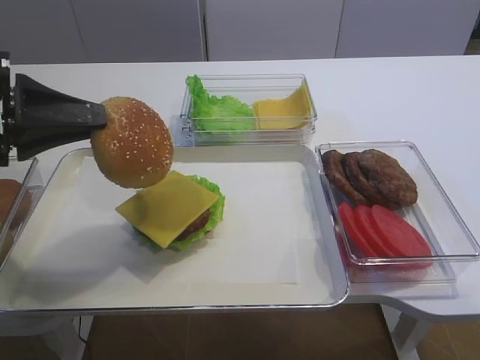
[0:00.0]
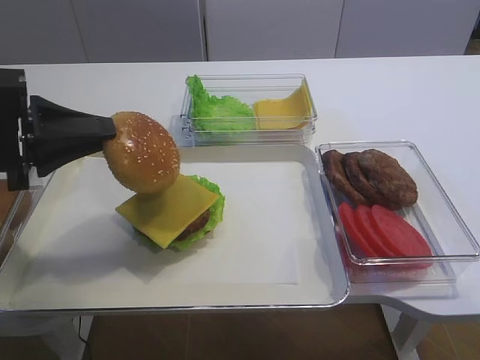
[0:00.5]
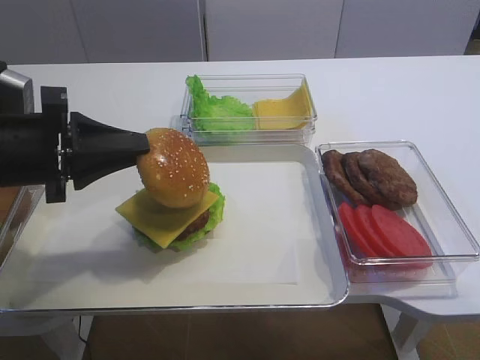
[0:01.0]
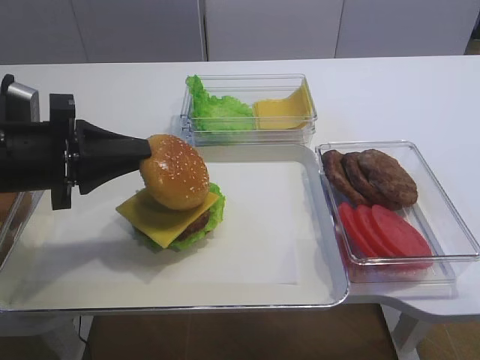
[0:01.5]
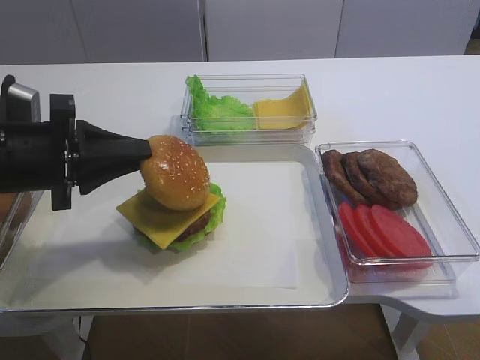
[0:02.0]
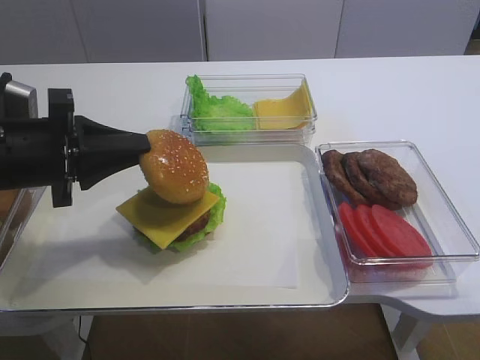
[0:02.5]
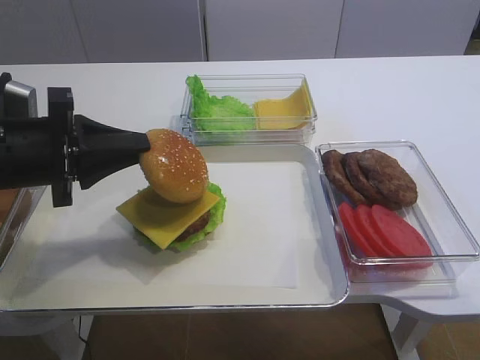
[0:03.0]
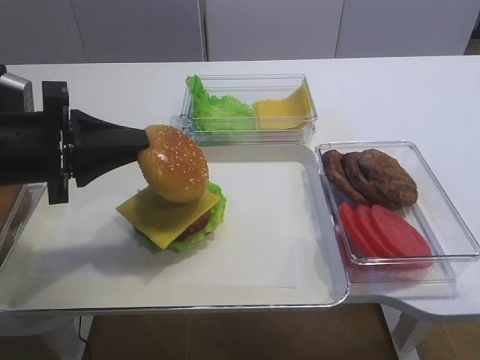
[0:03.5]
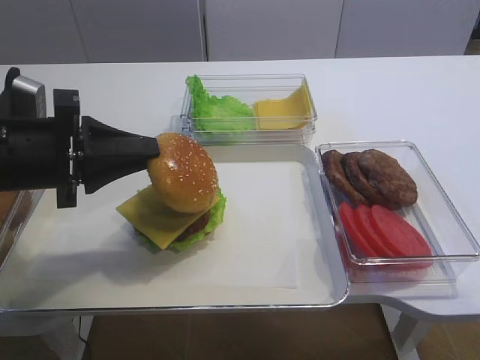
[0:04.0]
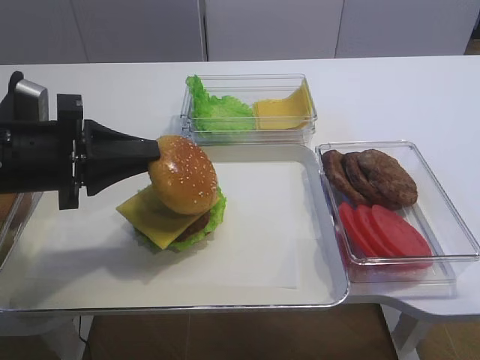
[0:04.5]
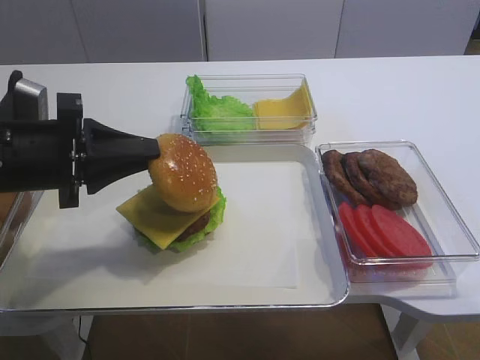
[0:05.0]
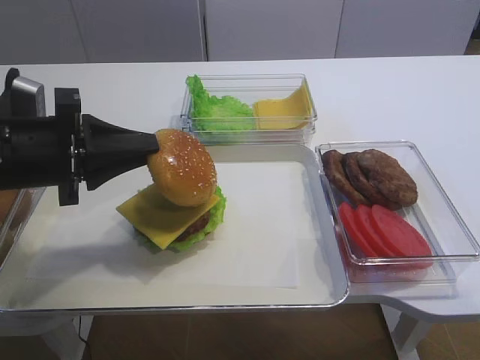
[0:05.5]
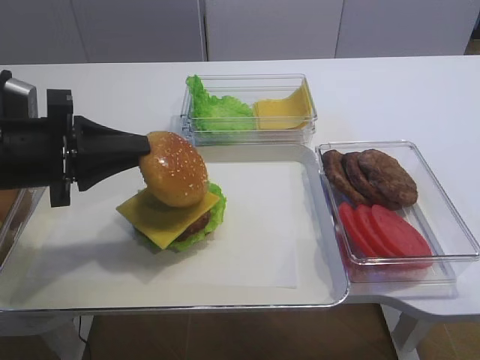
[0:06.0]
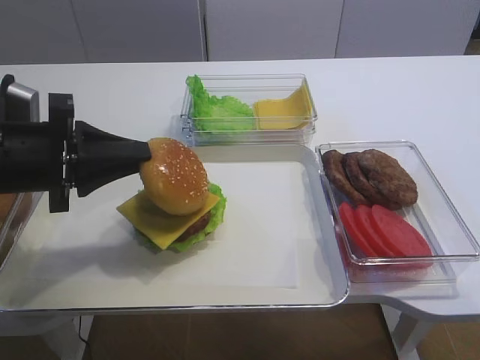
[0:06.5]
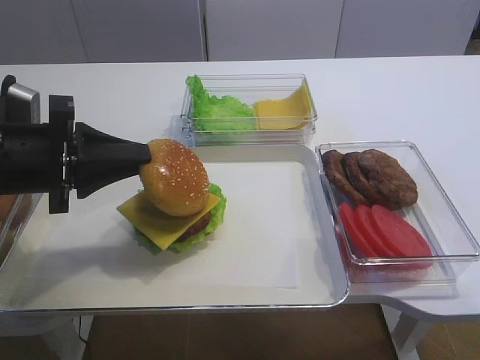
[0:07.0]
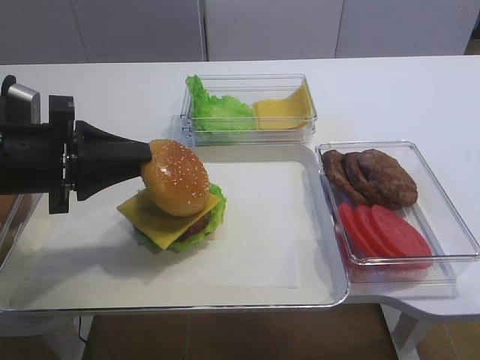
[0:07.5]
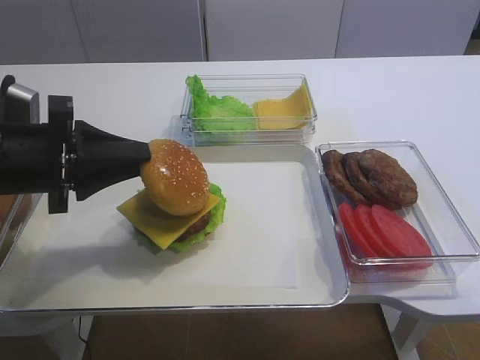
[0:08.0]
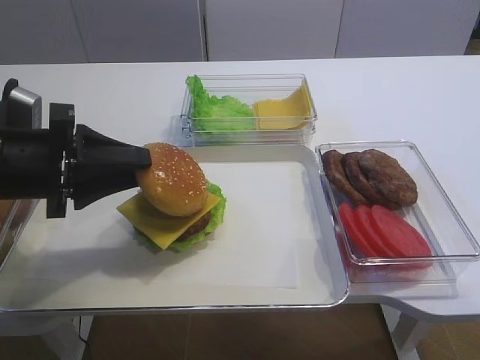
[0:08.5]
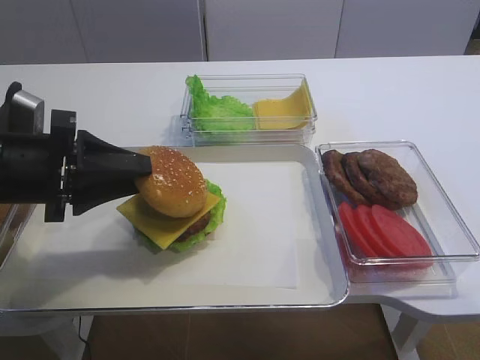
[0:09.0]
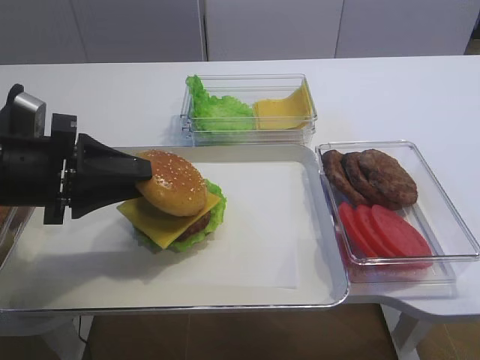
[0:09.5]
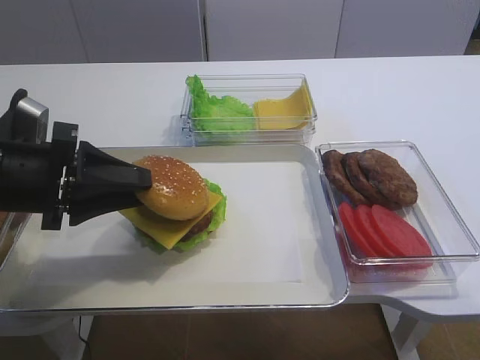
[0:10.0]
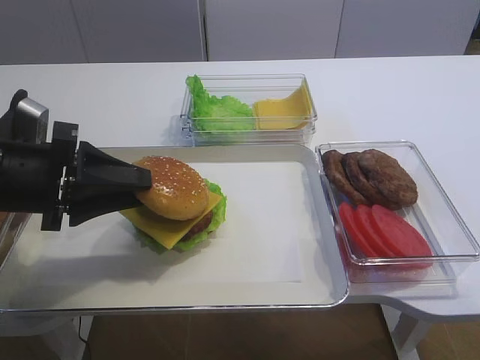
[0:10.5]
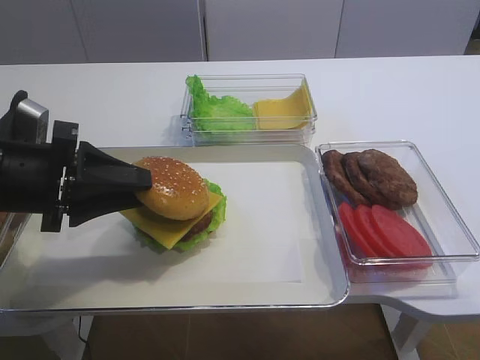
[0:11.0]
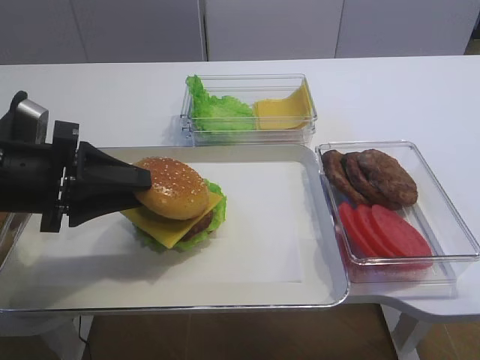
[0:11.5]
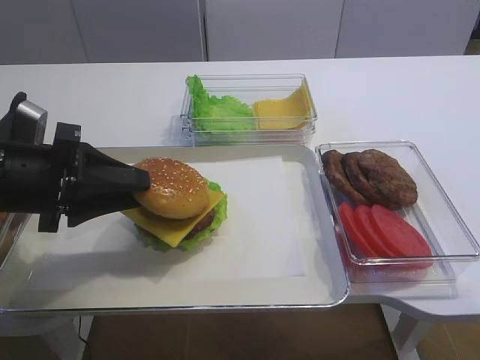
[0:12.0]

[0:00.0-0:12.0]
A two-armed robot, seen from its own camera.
0:00.0 to 0:02.0: The left gripper heads downward, covering approximately 5 cm.
0:02.0 to 0:04.0: The grippers move only a little.
0:04.0 to 0:08.0: Neither gripper changes place.
0:08.0 to 0:10.0: The grippers make only small movements.
0:10.0 to 0:12.0: Neither gripper changes place.

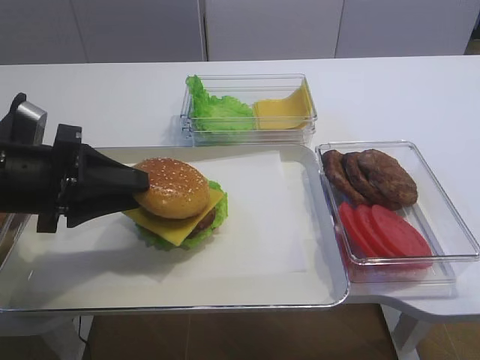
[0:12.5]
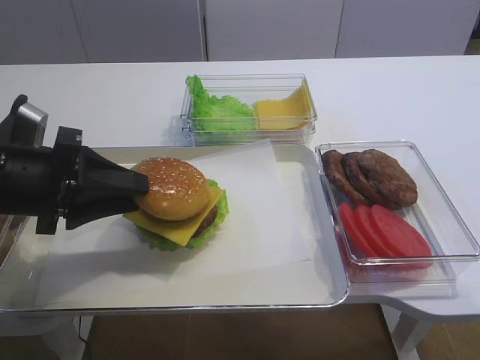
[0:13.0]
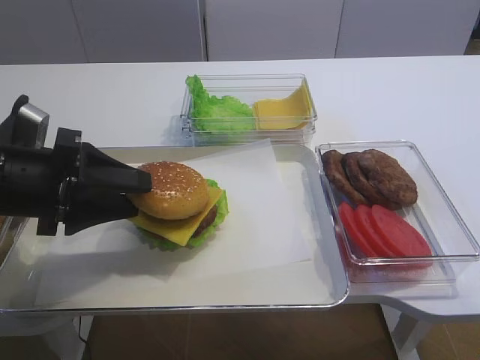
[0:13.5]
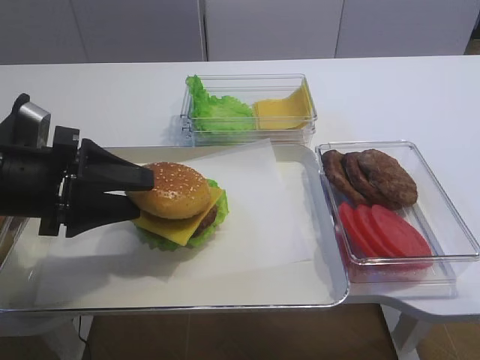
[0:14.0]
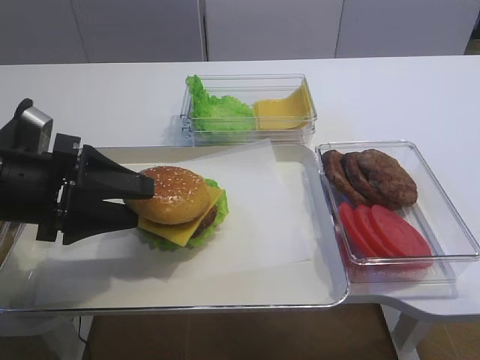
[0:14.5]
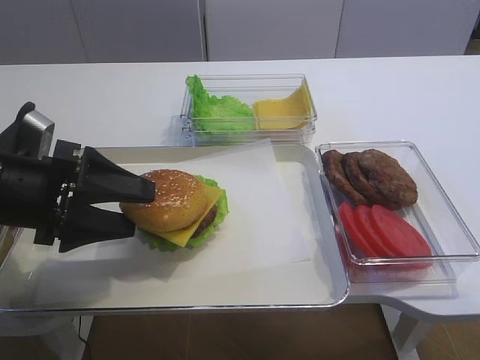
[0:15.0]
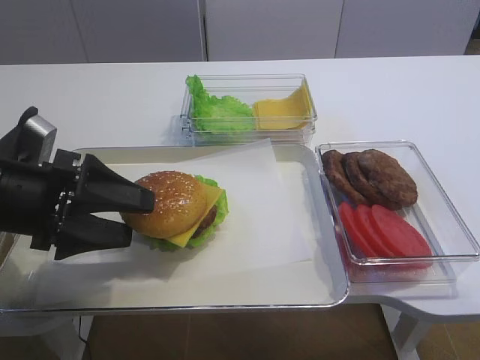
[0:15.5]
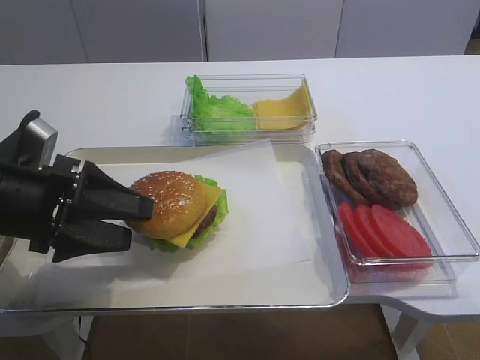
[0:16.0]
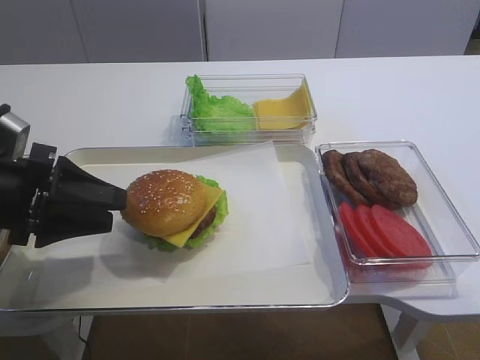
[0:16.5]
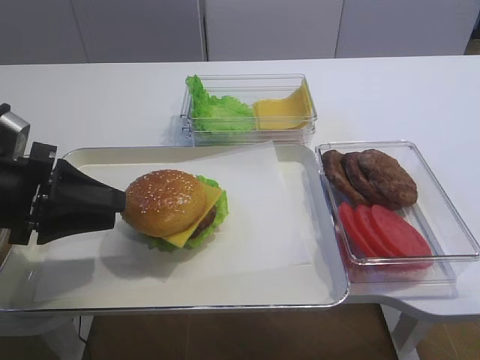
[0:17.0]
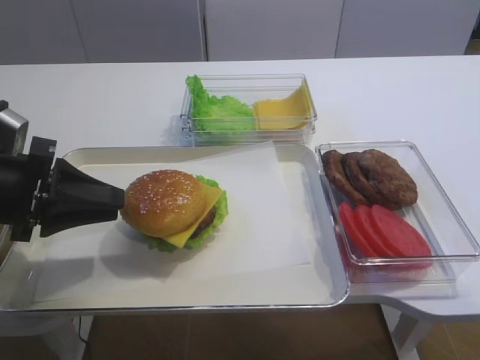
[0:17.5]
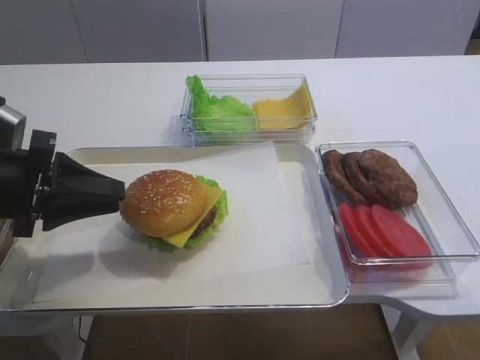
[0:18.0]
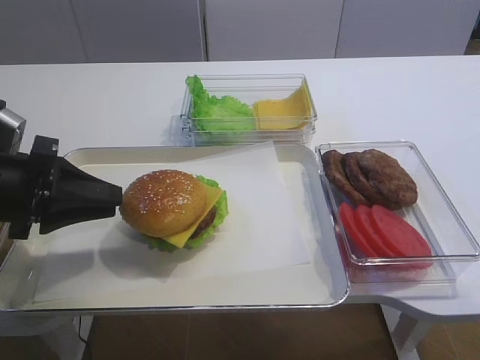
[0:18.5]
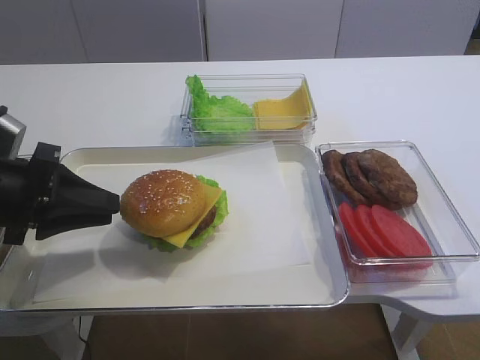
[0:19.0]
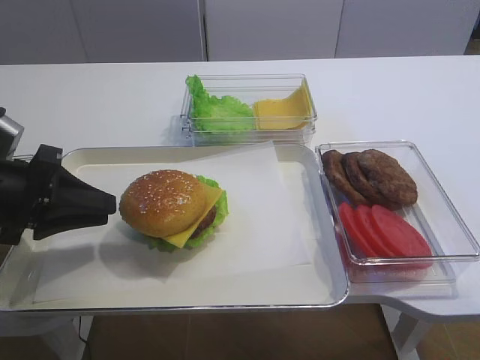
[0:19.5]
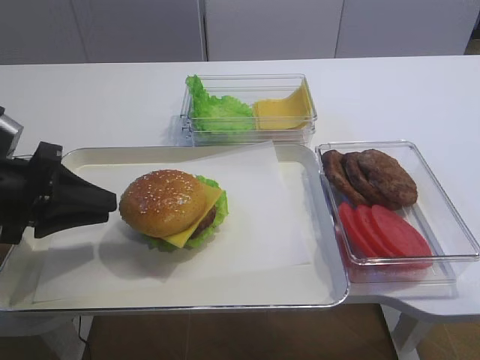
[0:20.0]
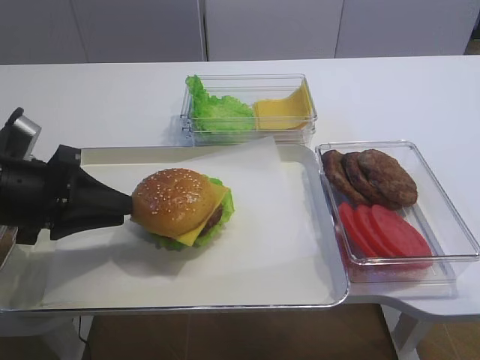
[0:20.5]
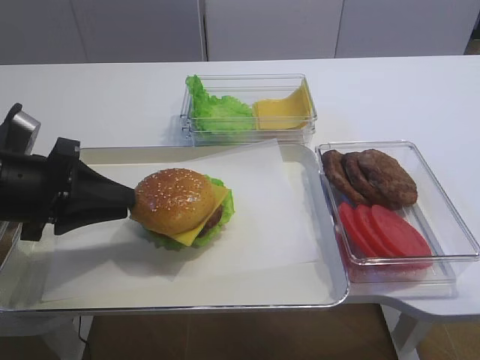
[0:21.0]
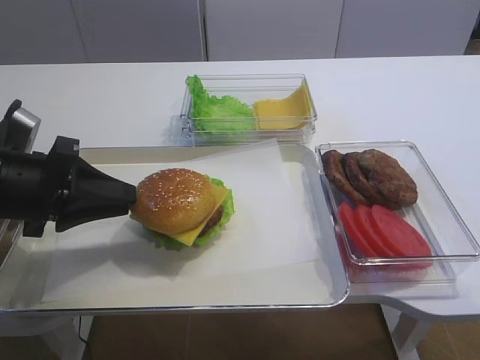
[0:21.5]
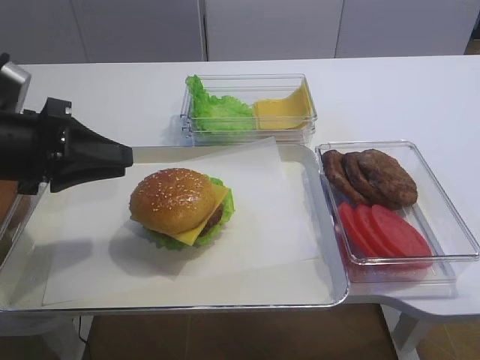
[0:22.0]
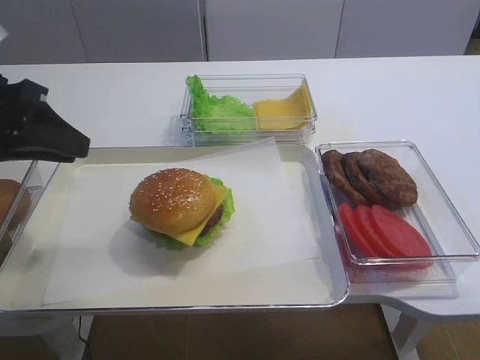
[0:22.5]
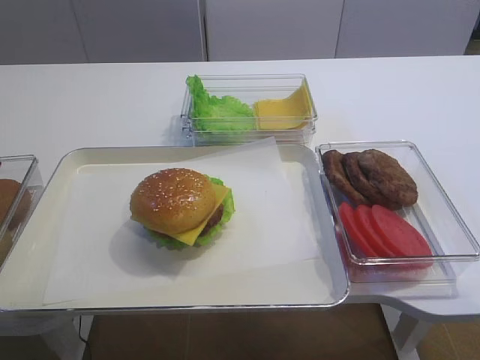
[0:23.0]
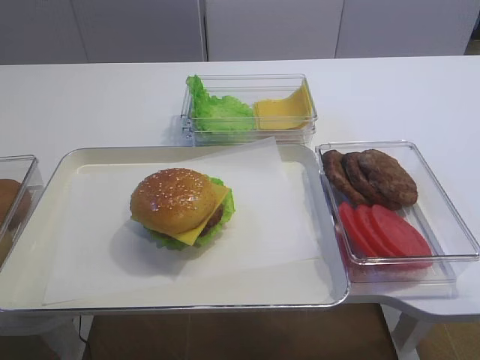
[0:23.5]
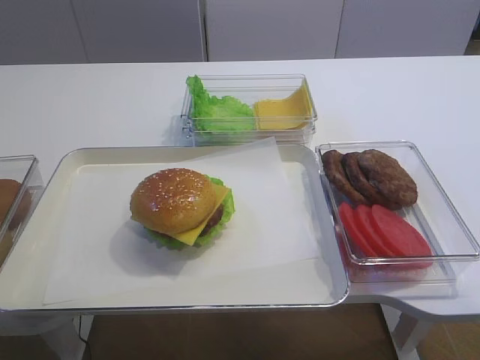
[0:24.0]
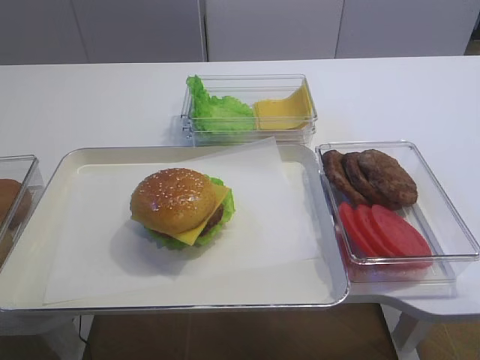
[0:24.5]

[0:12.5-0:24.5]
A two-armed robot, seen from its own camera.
Step, 0:12.5 to 0:18.5: Place the hamburger lid on the cheese slice with the left gripper.
0:12.5 to 0:14.5: The left gripper opens up.
0:14.5 to 0:16.5: The grippers stay close to where they were, moving slightly.
0:16.5 to 0:18.5: The left gripper closes its fingers.
0:18.5 to 0:20.5: The grippers make only small movements.
0:20.5 to 0:22.5: The left gripper heads upward, covering about 10 cm.
0:22.5 to 0:24.5: The left gripper is displaced backward and upward by some 25 cm.

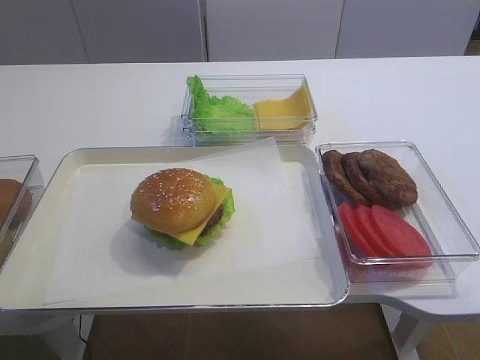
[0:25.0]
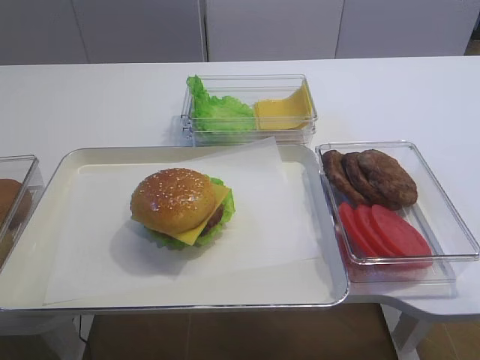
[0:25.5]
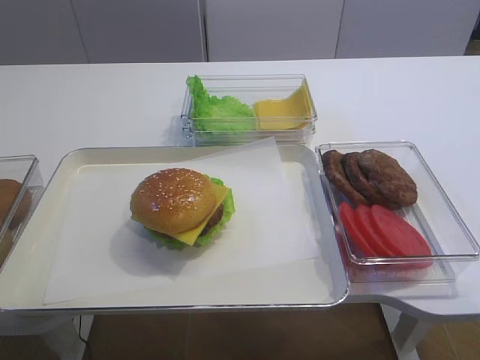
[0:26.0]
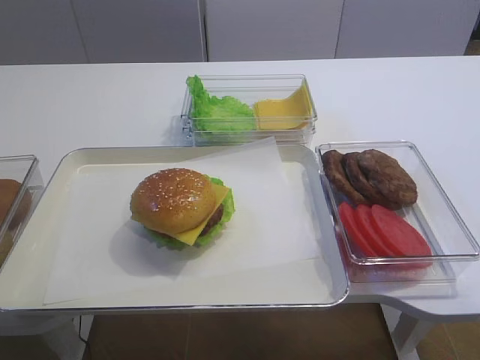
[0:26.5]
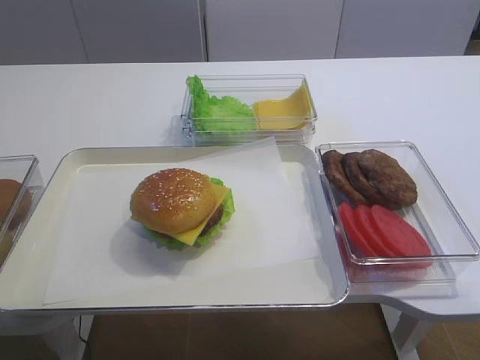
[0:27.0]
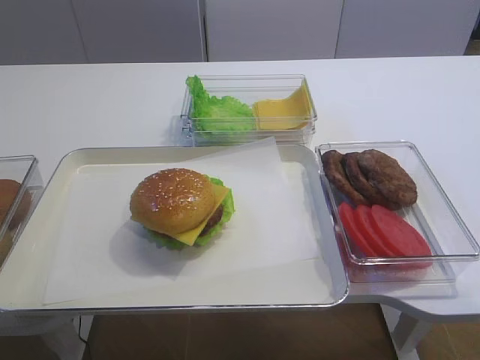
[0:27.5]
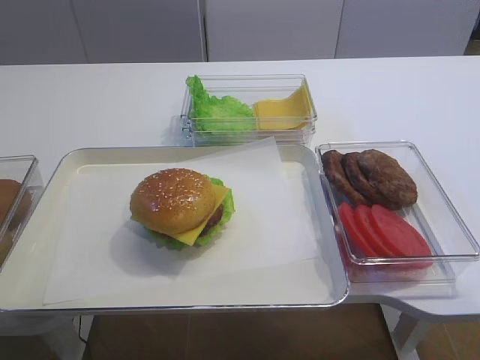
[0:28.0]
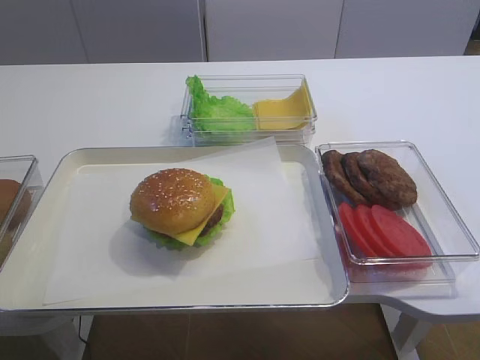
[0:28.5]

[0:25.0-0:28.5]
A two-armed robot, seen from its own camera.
0:27.0 to 0:28.5: Both grippers stay put.
